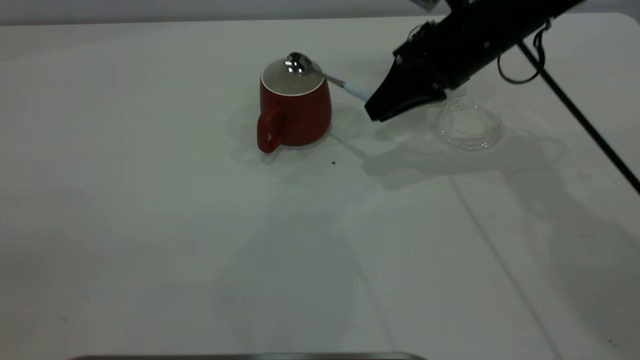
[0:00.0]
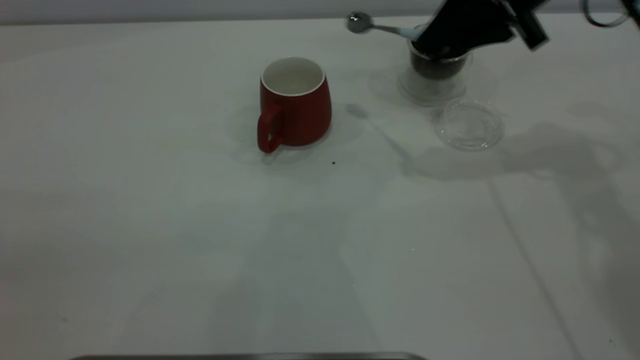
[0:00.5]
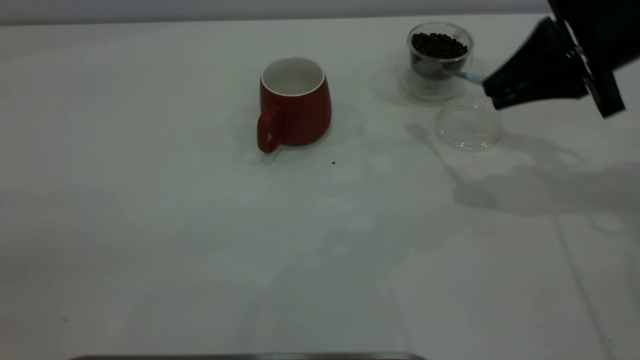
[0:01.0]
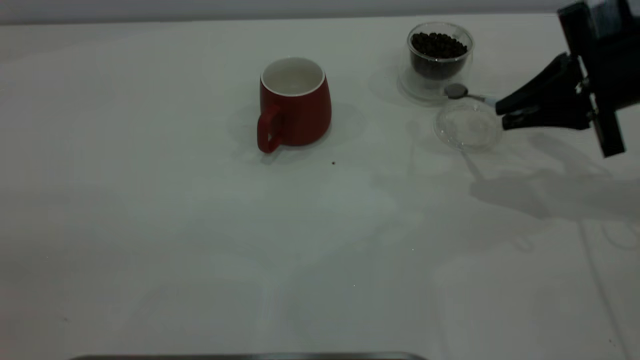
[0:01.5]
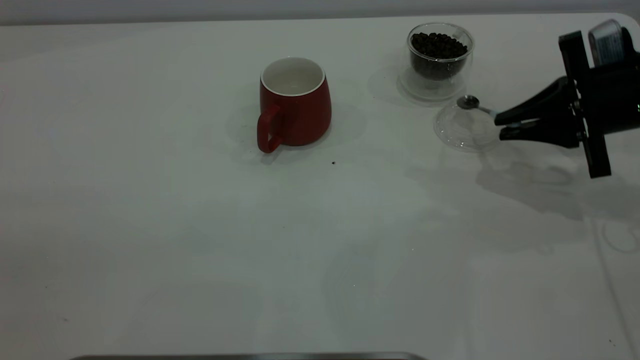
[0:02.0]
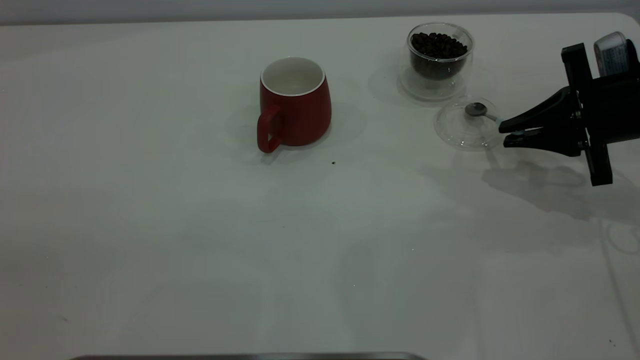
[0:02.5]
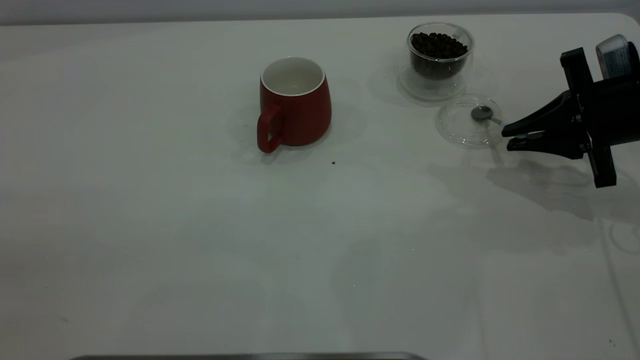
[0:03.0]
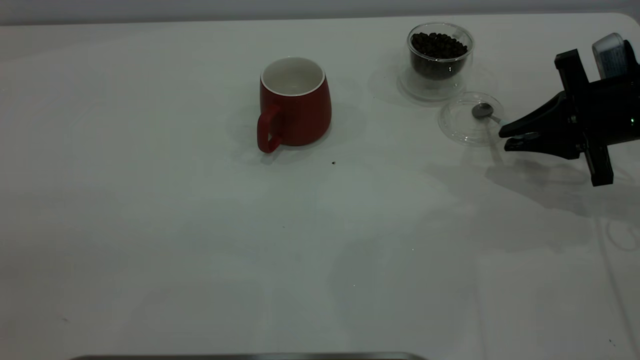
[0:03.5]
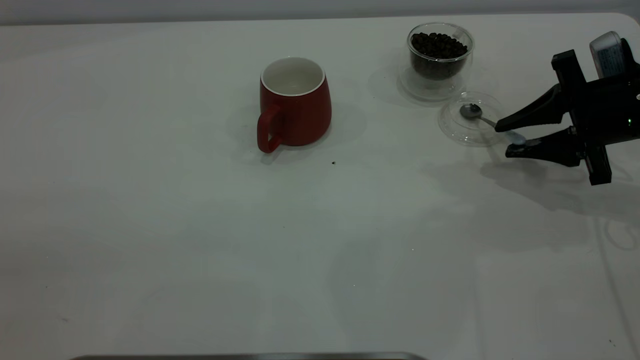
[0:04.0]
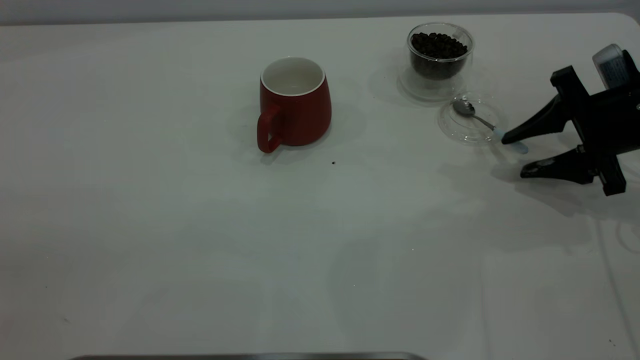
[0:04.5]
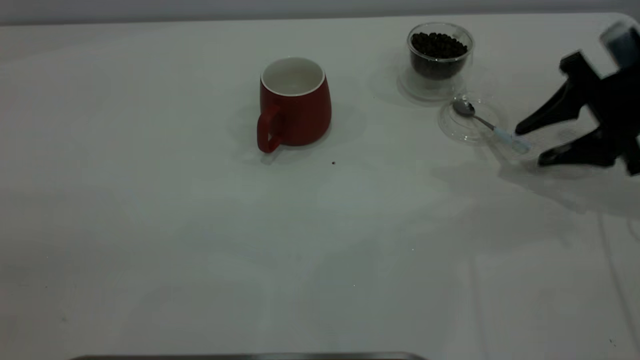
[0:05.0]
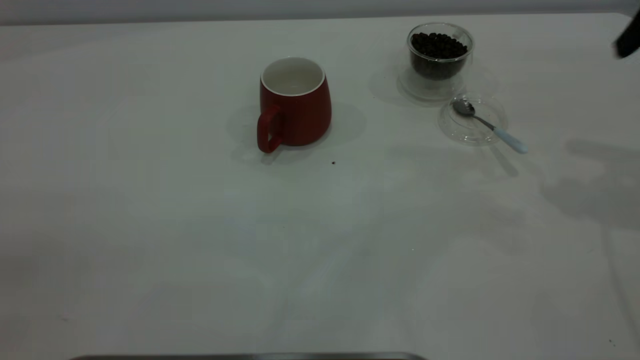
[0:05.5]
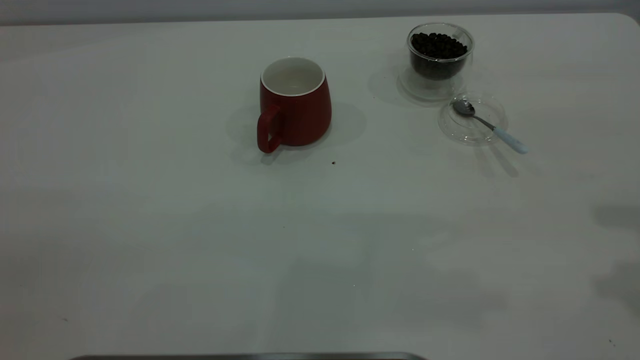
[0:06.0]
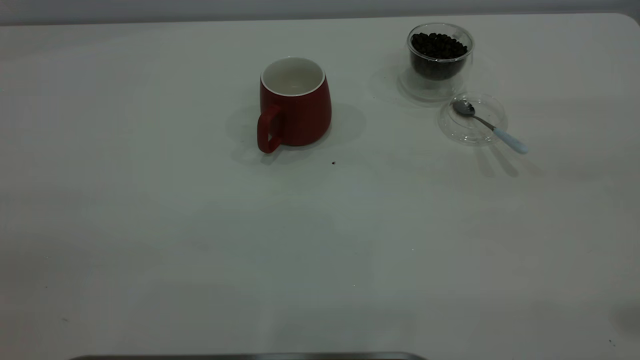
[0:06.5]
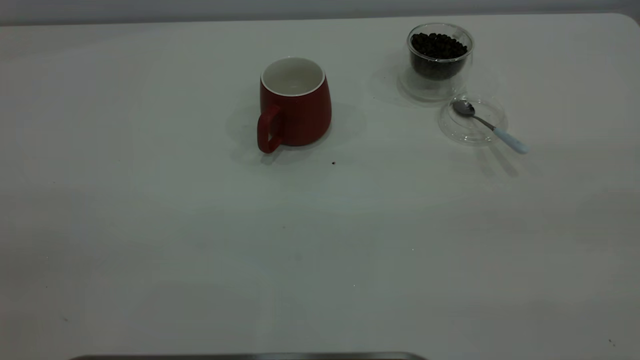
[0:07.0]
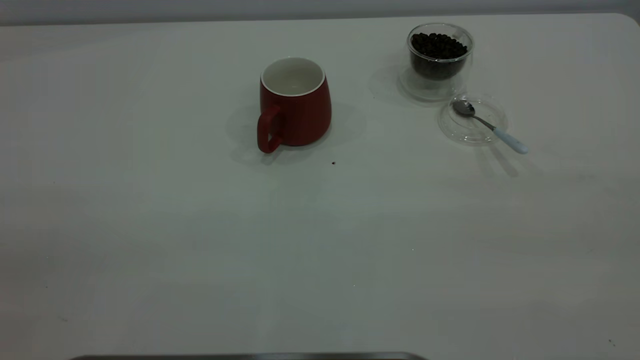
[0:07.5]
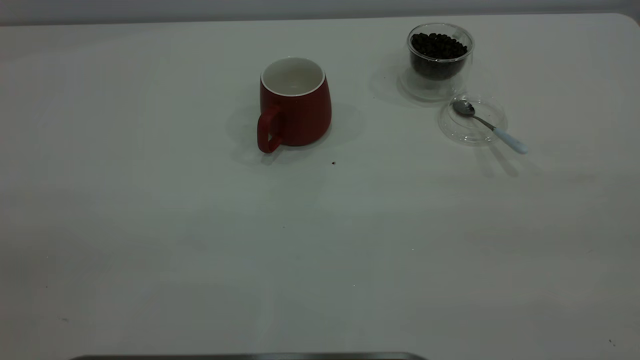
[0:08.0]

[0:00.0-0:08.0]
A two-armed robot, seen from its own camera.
Task of the whole recording: the left gripper place the red cup in the center of the table, the right gripper take the blue spoon from the cup lid and scoop out the coffee beans from the coffee cup and put them into the red cup, the right gripper put the spoon back into the cup lid.
Step, 0:00.5 to 0:05.0: Place the spoon back in its original place.
0:00.0 to 0:02.0: The right gripper goes some 15 cm to the right and backward.
0:02.0 to 0:04.0: The right gripper opens up.
0:04.0 to 0:06.0: The right gripper goes approximately 30 cm upward and backward.
